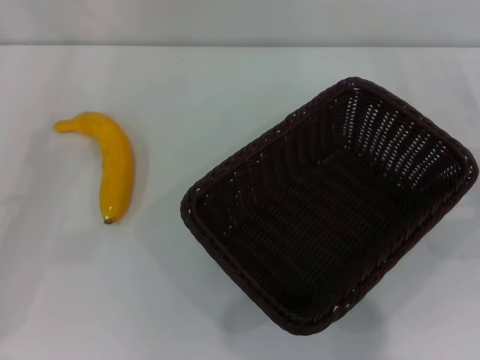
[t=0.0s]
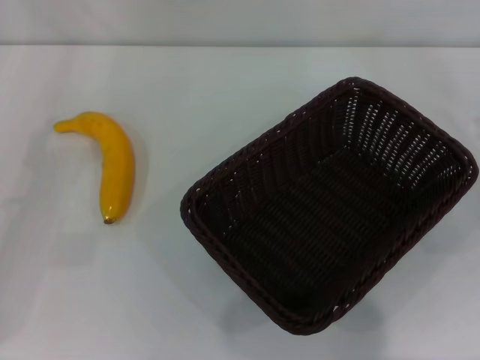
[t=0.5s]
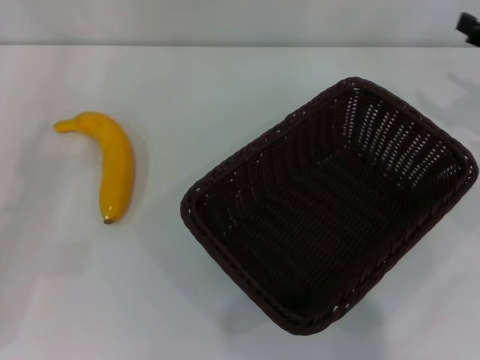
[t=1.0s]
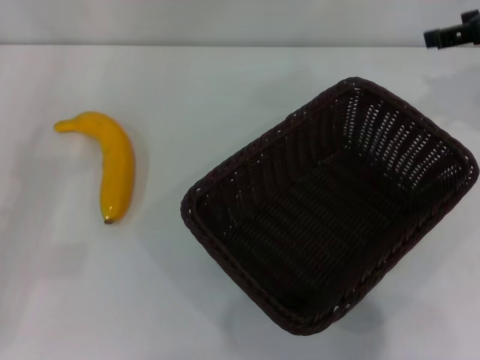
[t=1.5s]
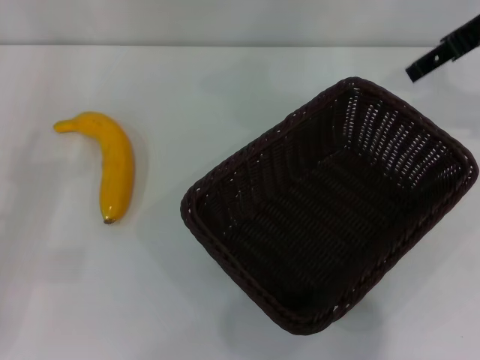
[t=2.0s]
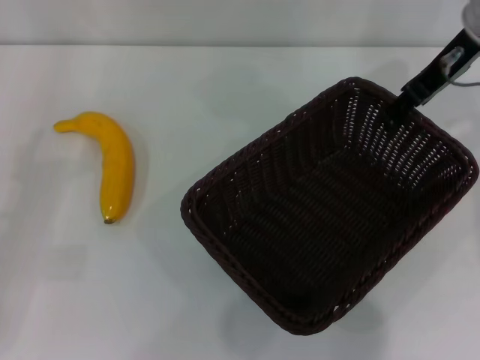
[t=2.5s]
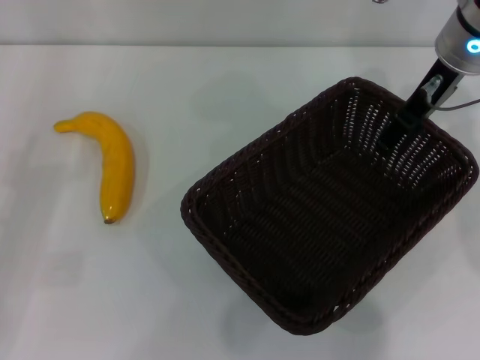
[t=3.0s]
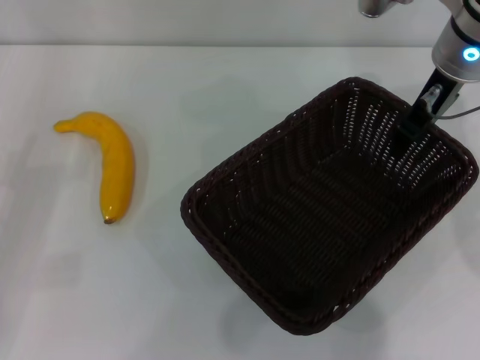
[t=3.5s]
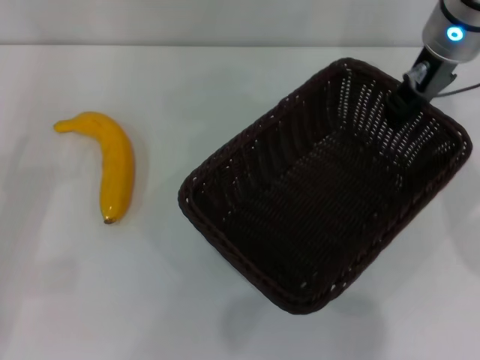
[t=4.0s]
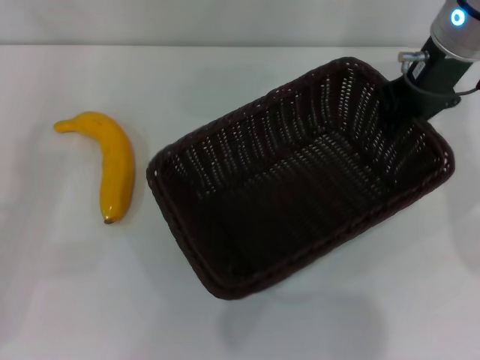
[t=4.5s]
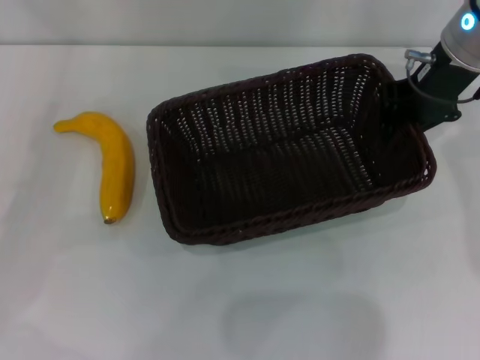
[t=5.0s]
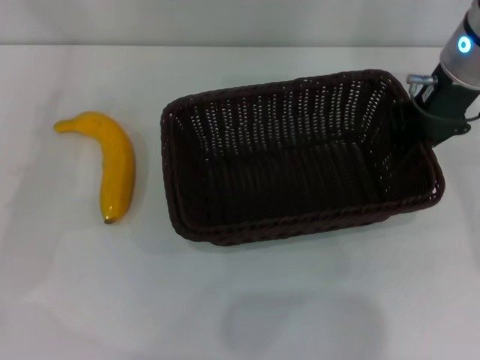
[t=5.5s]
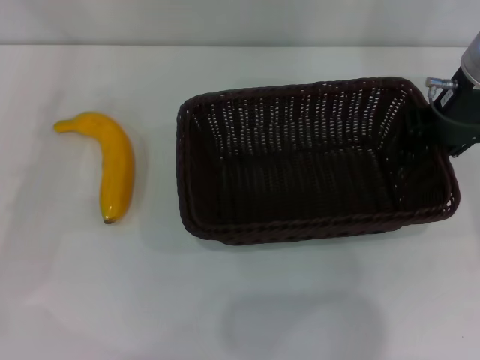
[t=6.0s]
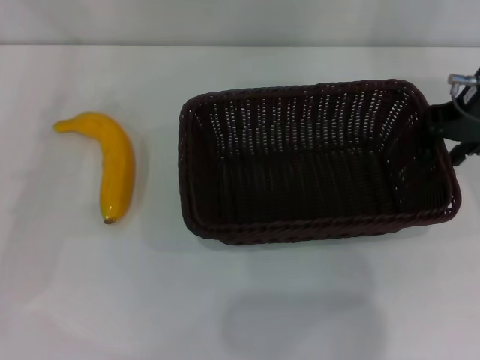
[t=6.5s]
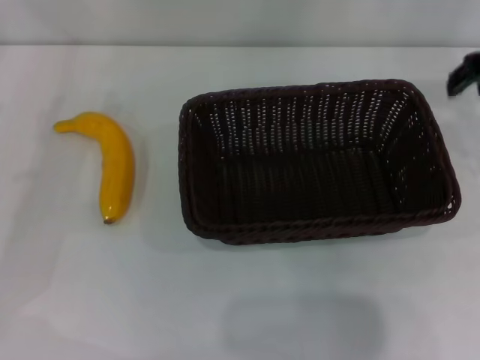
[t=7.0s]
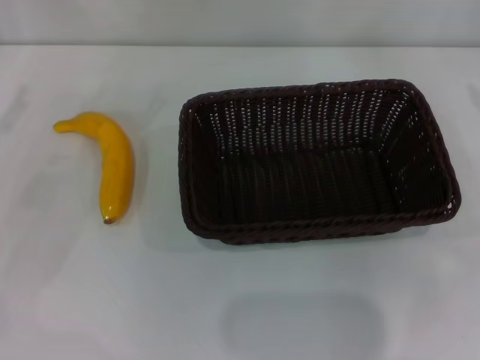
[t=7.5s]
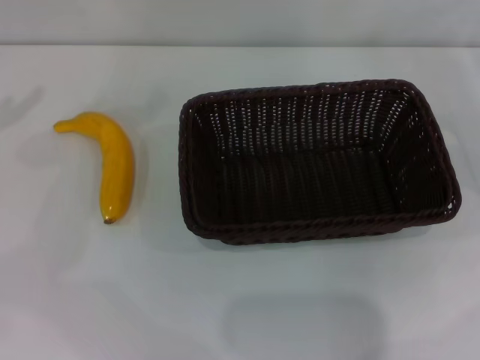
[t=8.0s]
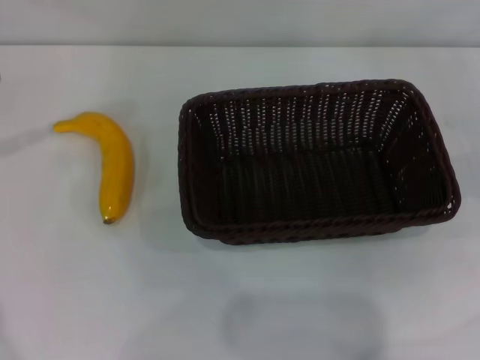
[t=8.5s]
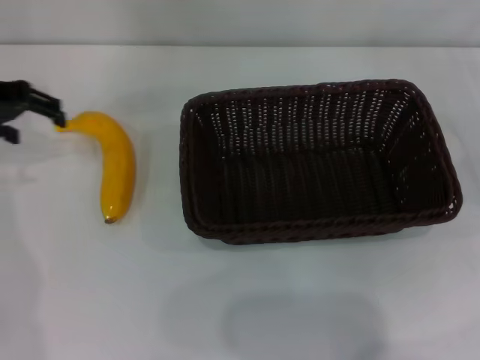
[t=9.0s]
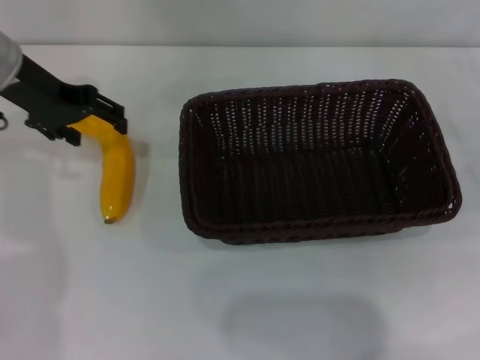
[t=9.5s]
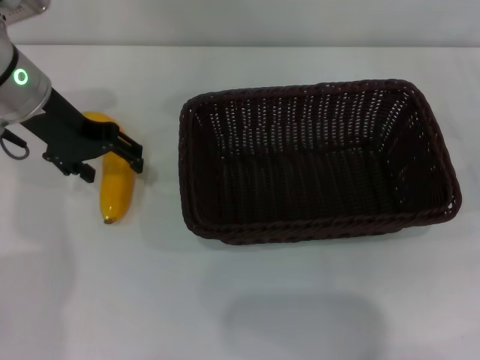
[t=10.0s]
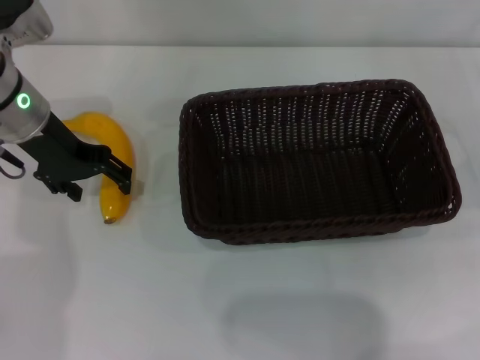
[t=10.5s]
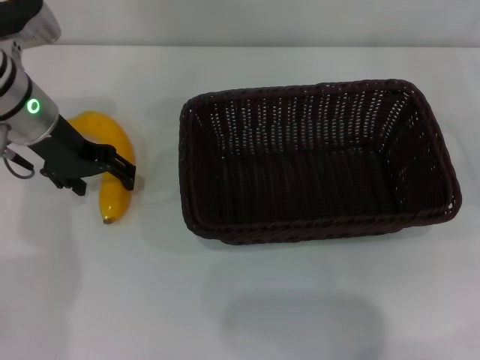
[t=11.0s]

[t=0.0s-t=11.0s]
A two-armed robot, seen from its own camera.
Step, t=0.0s to t=4.5s: Pick up the dark basket with the right gripper.
Step, t=5.0s to t=7.0s: Place the dark basket in the center of view with the right gripper.
t=0.0s to t=2.0s: The right gripper goes some 30 cm upward, forward and to the left.
t=2.0s to t=3.5s: The right gripper moves to the left and downward, some 10 cm.
t=3.5s to t=5.5s: The right gripper closes. Meanwhile the left gripper goes about 5 cm forward.
t=5.5s to t=7.5s: The right gripper heads to the right, covering about 20 cm, and opens.
t=7.5s to t=9.0s: The left gripper shifts approximately 15 cm forward, to the right and upward.
t=9.0s to t=11.0s: The left gripper goes about 10 cm to the right and downward.

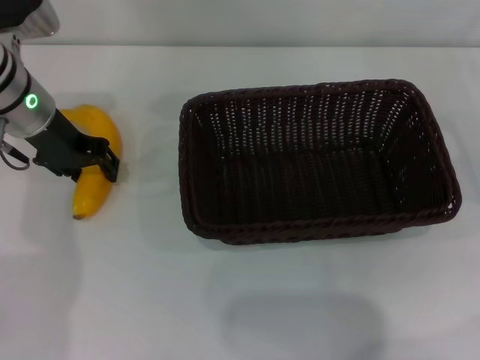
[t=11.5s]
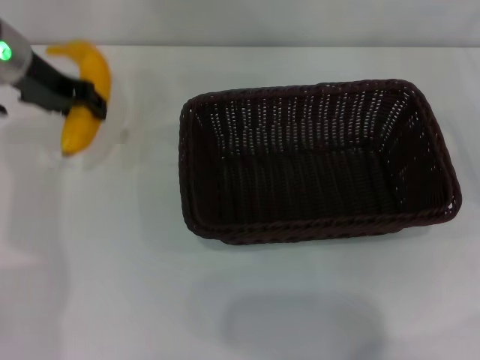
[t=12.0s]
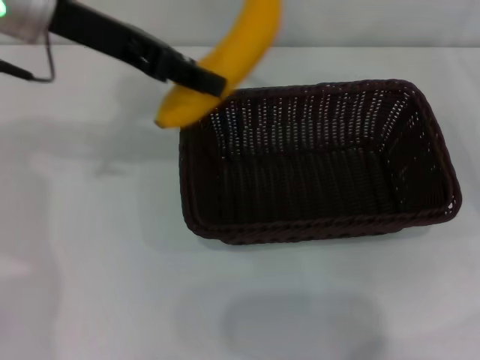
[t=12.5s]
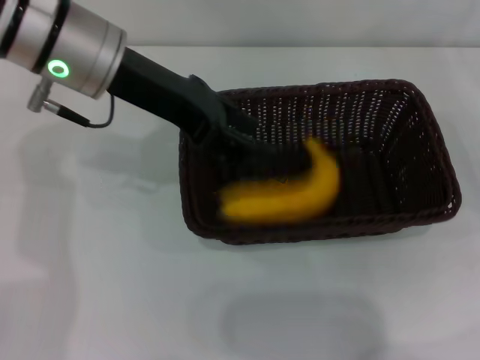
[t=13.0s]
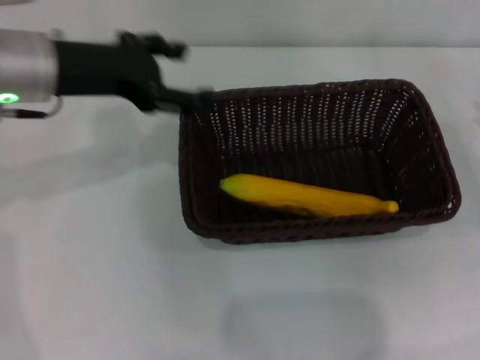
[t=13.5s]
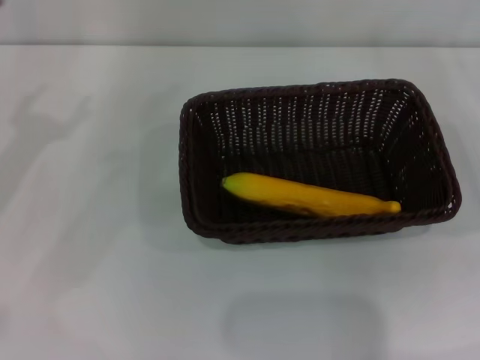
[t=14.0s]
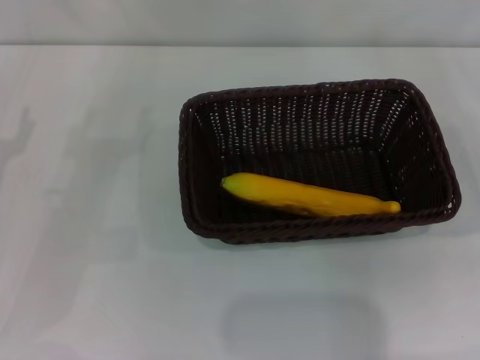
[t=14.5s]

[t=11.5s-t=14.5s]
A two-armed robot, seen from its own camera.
Step, t=12.5s to t=13.5s: Place the banana into the dark basket with the left gripper.
t=11.5s to t=13.0s: The left gripper moves upward and to the right, approximately 10 cm, and closes up.
t=13.0s to t=14.5s: The left gripper travels to the left, downward and backward by approximately 25 cm, and opens.

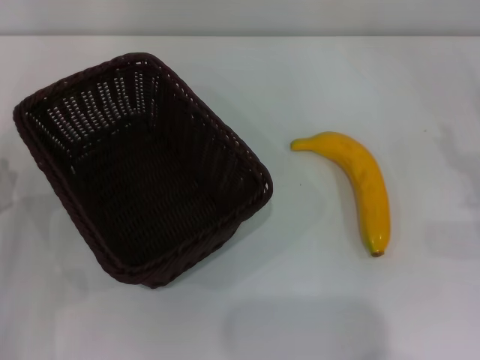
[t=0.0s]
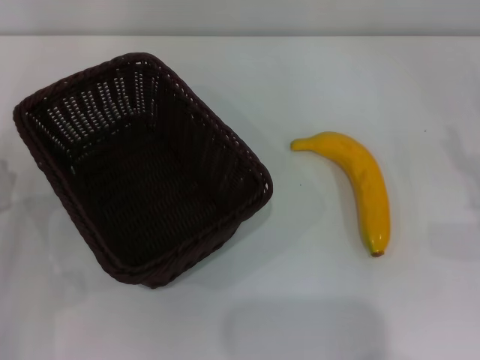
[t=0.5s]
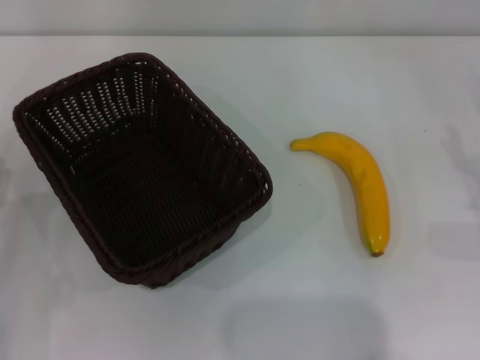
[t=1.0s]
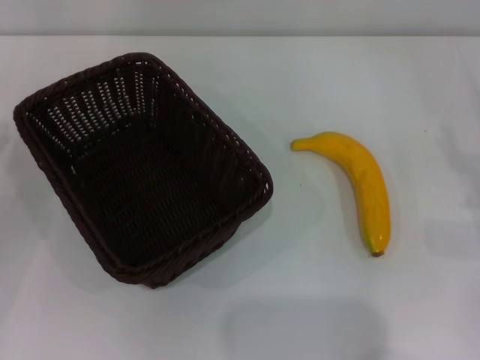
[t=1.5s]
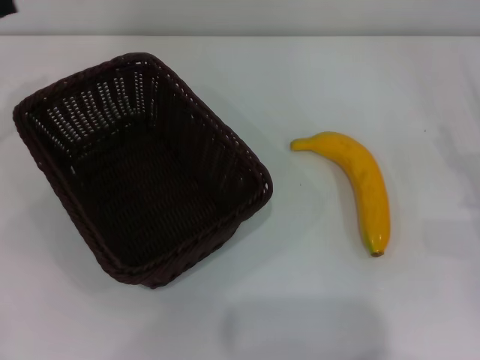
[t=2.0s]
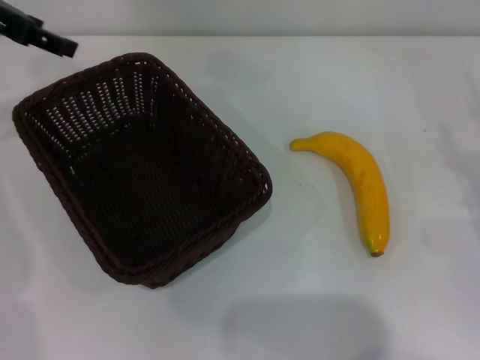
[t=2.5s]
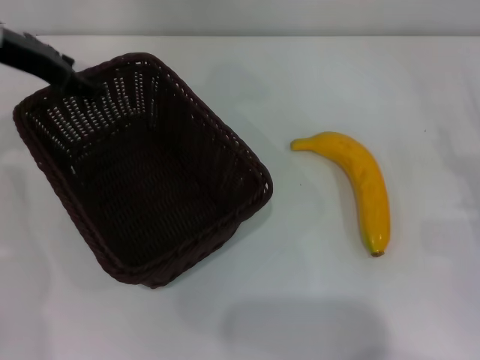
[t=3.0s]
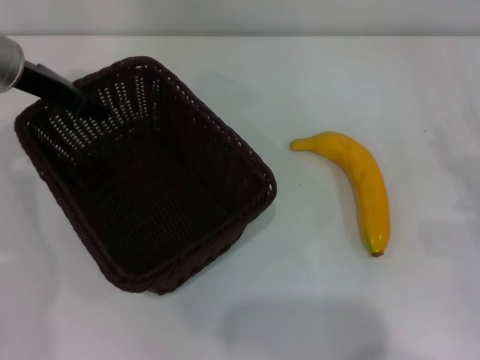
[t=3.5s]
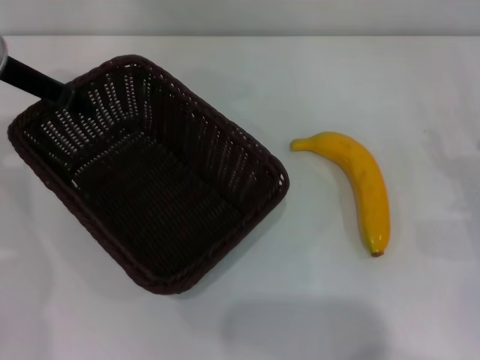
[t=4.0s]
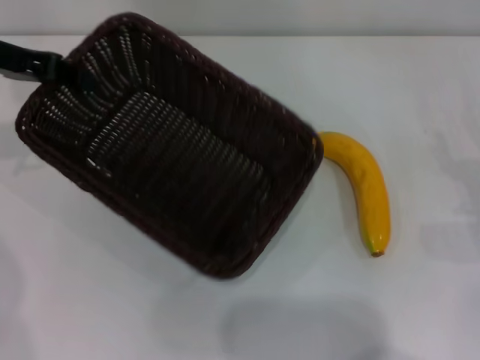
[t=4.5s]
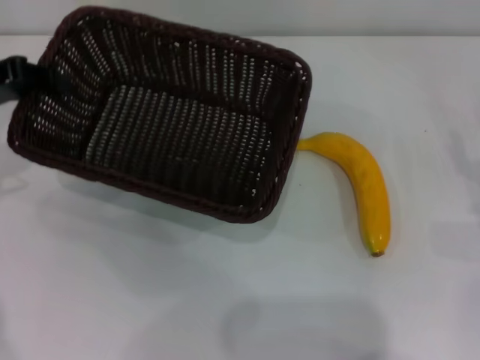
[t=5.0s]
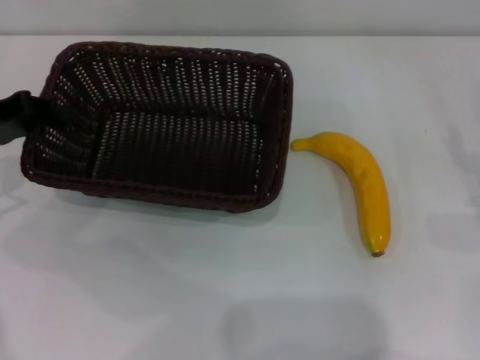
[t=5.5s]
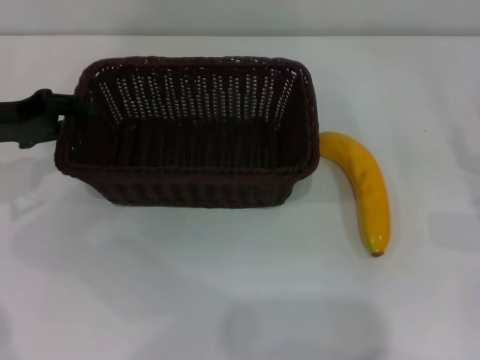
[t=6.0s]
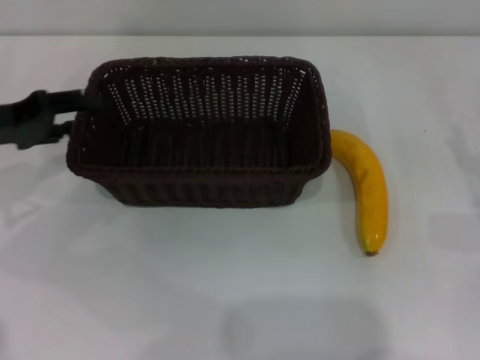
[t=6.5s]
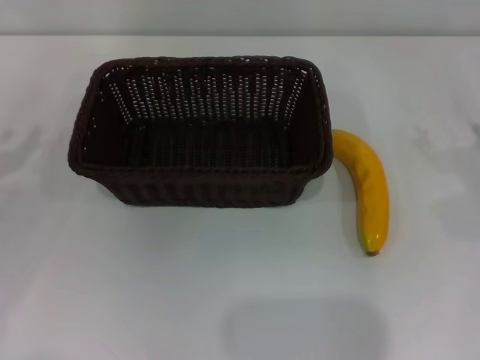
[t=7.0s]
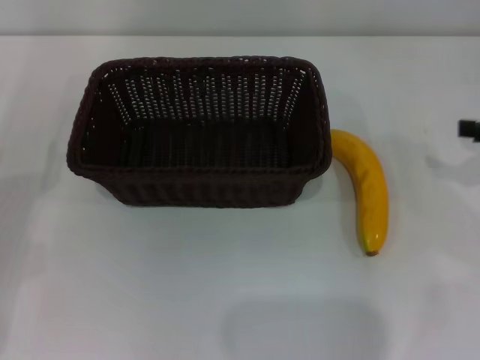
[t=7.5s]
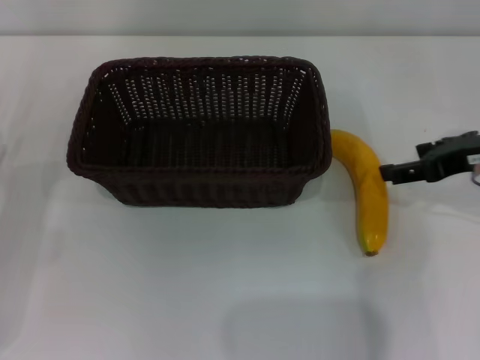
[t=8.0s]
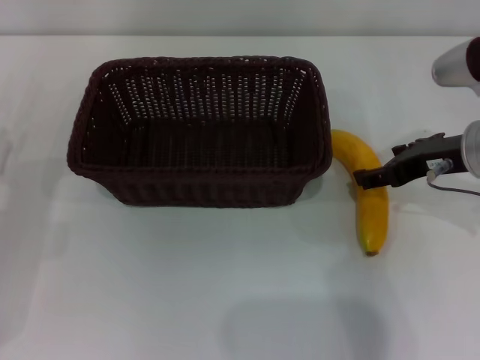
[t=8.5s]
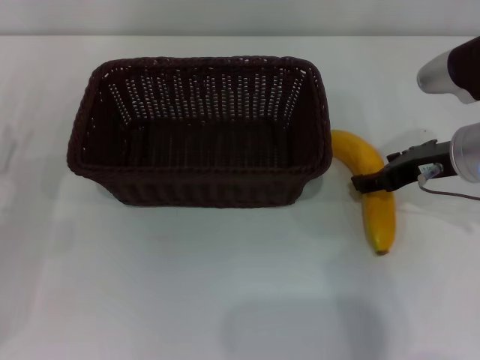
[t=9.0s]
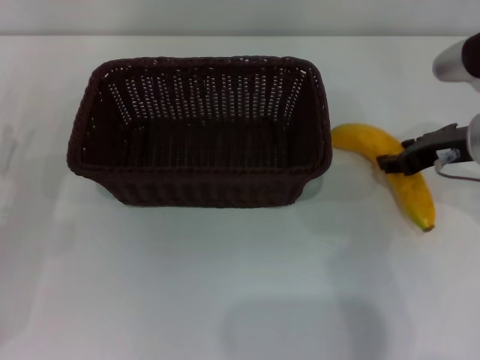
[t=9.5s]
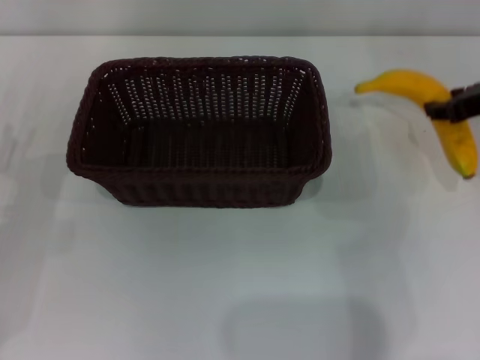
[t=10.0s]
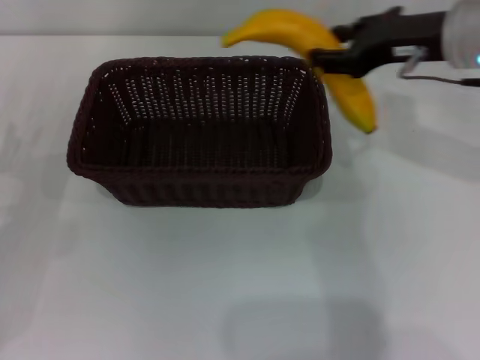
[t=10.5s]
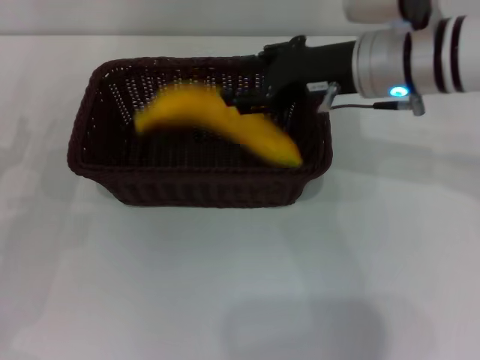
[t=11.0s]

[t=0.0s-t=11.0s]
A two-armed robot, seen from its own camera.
Step, t=0.0s to t=4.0s: Pick up the dark basket with the left gripper.
Step, t=4.5s to t=6.5s: Place the dark basket in the center of view with the left gripper.
Step, t=7.0s to t=10.0s: Pick up the banana with the right gripper.
t=0.0s to t=2.0s: The left gripper is displaced upward, forward and to the left by about 25 cm.
t=2.0s to t=3.5s: The left gripper moves to the right and forward, roughly 15 cm, and closes.
t=3.5s to t=5.5s: The left gripper moves to the left and backward, approximately 10 cm, and closes up.
t=5.5s to t=7.5s: The left gripper moves backward and downward, about 15 cm, and opens its fingers, while the right gripper goes about 15 cm upward.
t=7.5s to t=9.0s: The right gripper moves to the left, approximately 15 cm.
t=9.0s to t=11.0s: The right gripper moves to the left and upward, roughly 10 cm, and closes up.
